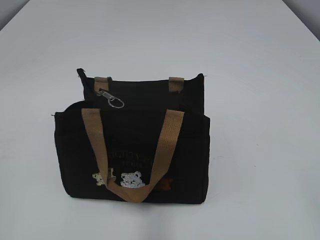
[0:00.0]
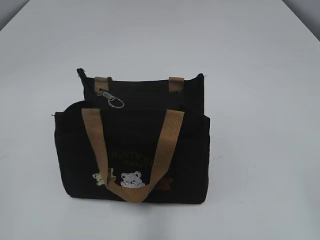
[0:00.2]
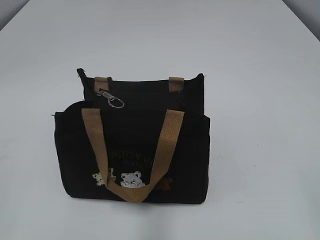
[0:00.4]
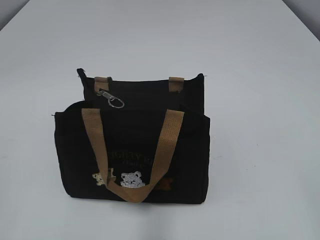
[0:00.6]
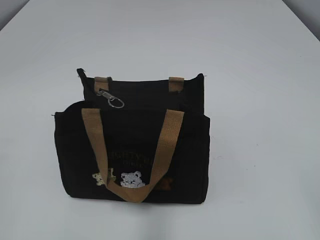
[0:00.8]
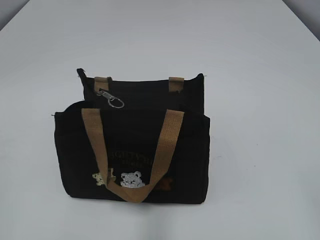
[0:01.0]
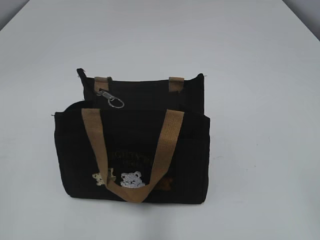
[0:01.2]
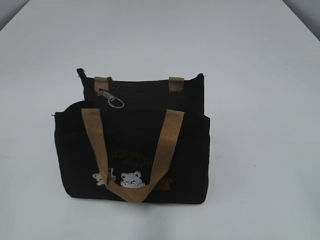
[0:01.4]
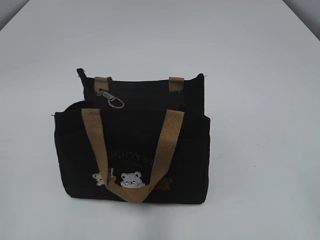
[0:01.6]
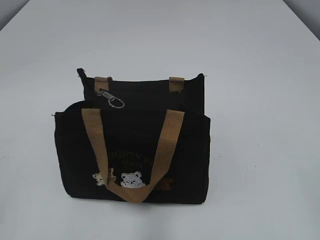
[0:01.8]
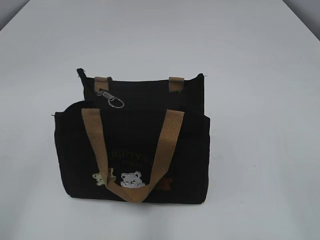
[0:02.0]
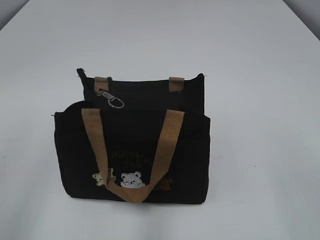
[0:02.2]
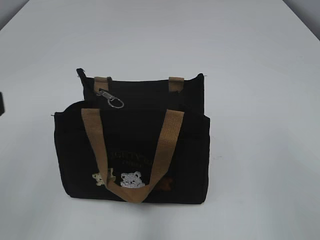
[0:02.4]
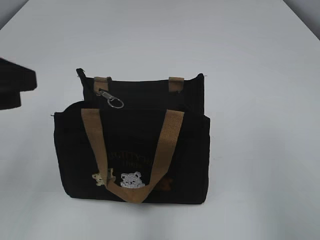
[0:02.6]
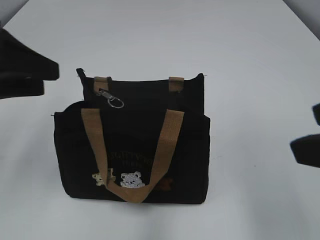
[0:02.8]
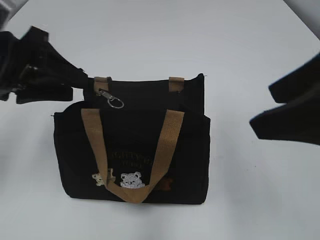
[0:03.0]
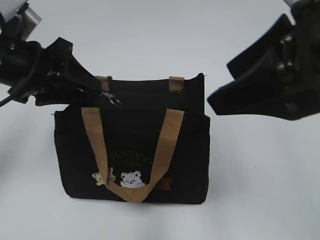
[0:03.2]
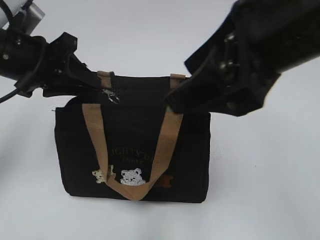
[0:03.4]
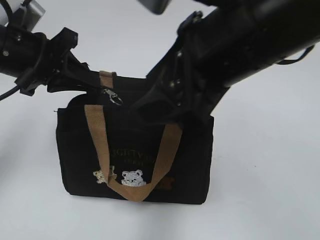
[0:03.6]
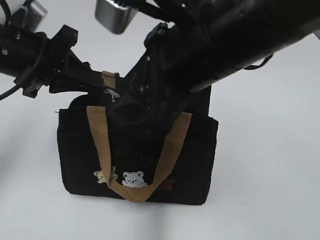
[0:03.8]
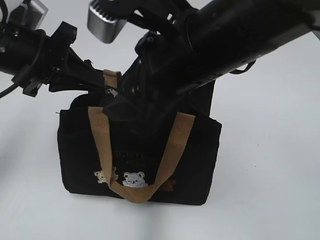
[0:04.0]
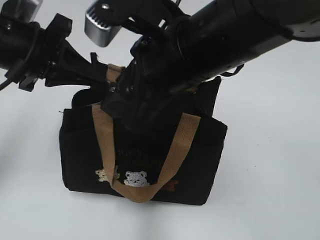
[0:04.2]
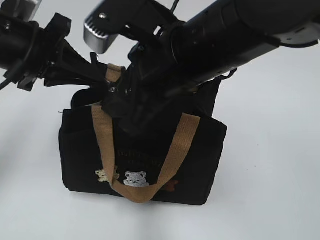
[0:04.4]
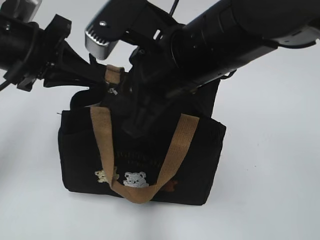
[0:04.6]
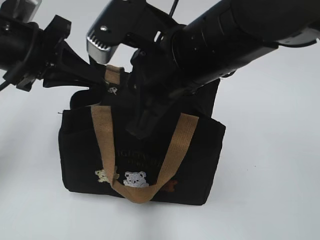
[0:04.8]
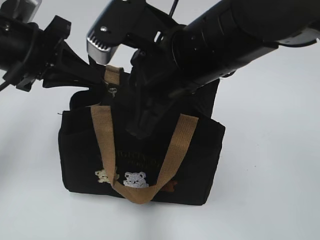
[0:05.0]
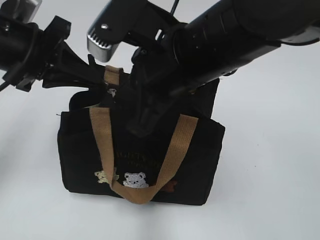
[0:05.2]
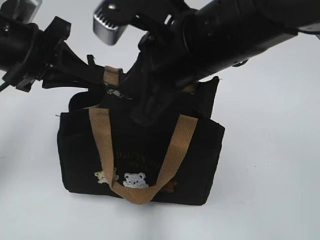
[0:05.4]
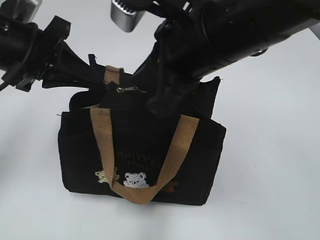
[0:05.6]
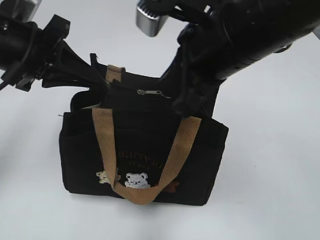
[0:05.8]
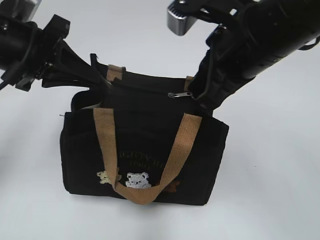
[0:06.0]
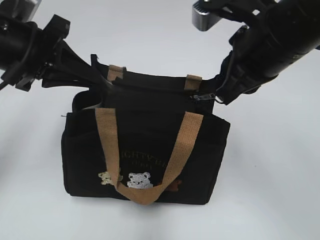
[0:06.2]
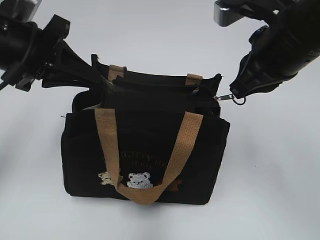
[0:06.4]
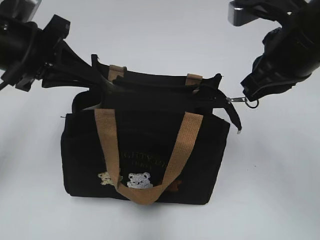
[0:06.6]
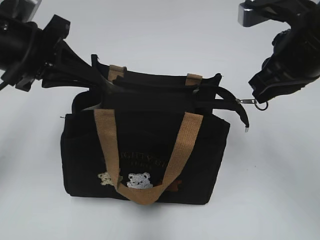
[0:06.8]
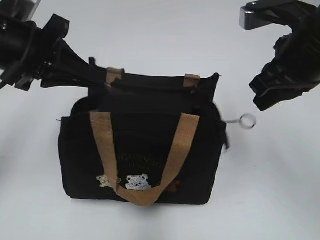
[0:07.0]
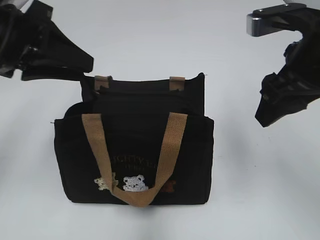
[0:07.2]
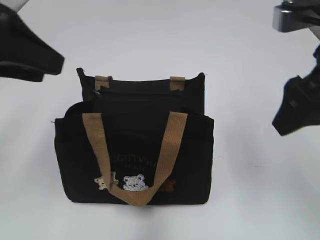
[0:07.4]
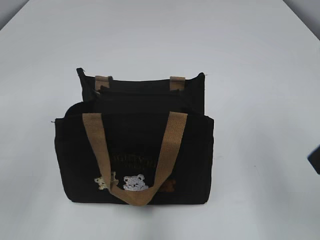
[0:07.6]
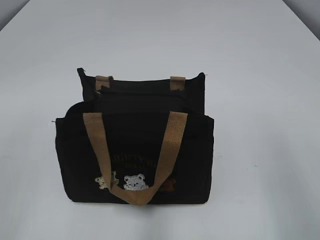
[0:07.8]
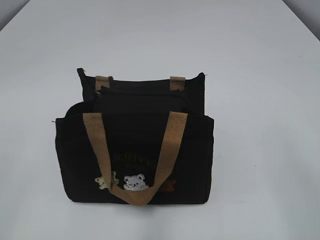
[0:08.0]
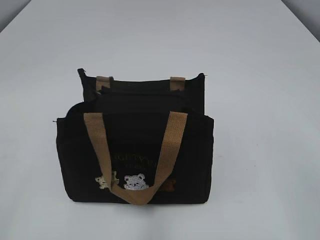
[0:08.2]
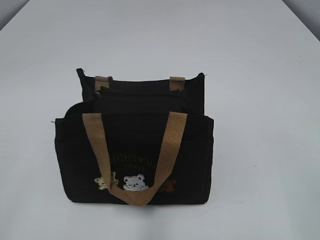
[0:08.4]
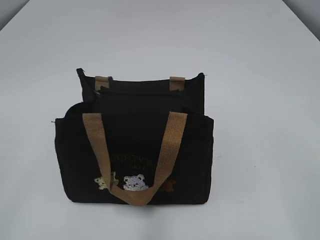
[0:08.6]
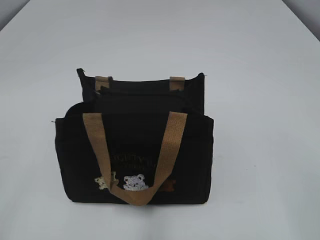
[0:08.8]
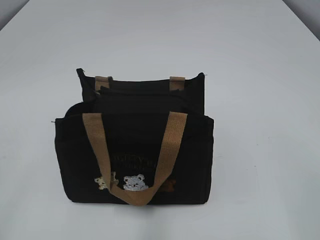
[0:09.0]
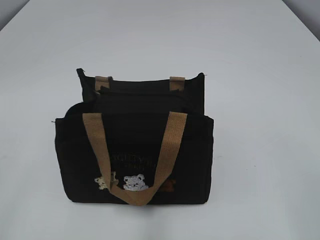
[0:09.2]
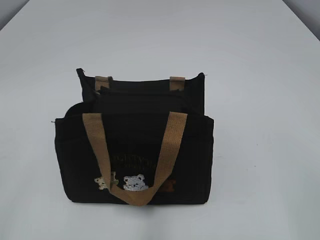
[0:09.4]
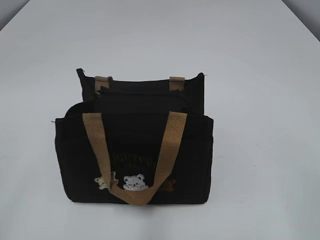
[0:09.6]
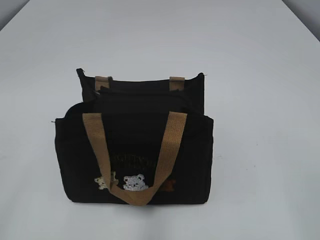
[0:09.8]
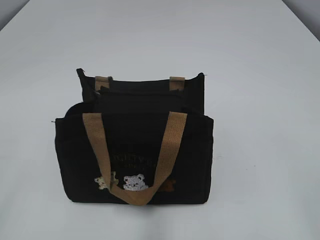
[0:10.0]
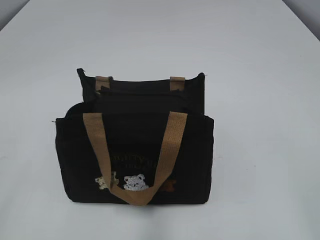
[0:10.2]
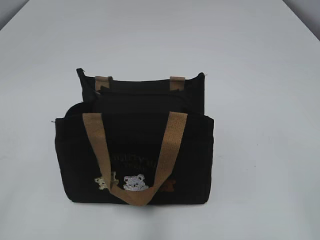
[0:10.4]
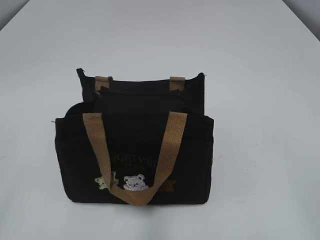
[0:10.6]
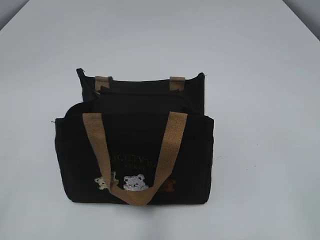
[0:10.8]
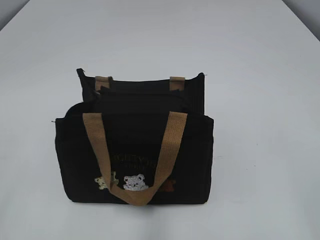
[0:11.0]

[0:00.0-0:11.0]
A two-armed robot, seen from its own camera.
Step, 0:00.0 to 0:06.8: Pull open the zipper with your right hand.
0:01.6 to 0:03.2: The left gripper is displaced forward by about 30 cm, while the right gripper heads forward and to the left, covering about 25 cm.
0:03.2 to 0:04.8: The right gripper shifts about 15 cm to the left, downward and forward, and closes its fingers, while the left gripper closes up.
0:04.8 to 0:06.2: The right gripper is displaced to the right by some 10 cm.
0:06.2 to 0:07.8: The right gripper goes approximately 20 cm backward and to the right, and opens its fingers. Meanwhile the left gripper travels backward and to the left by roughly 25 cm, and opens.
0:07.8 to 0:09.4: The left gripper heads backward and downward, covering roughly 10 cm, while the right gripper moves backward, roughly 10 cm.

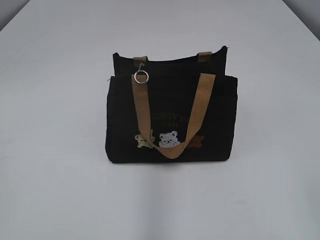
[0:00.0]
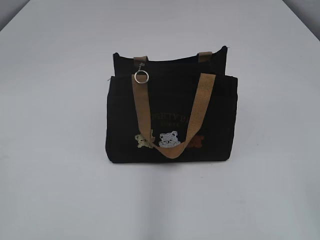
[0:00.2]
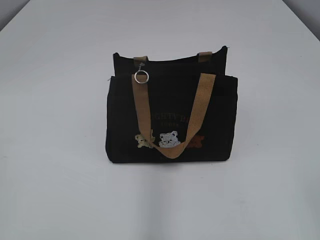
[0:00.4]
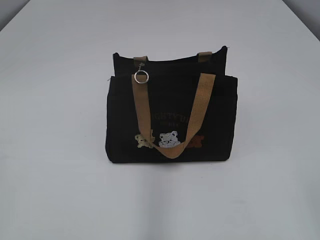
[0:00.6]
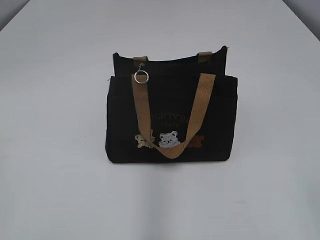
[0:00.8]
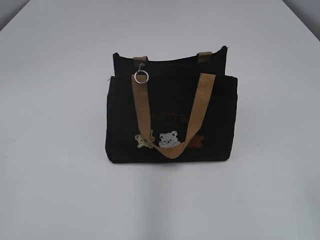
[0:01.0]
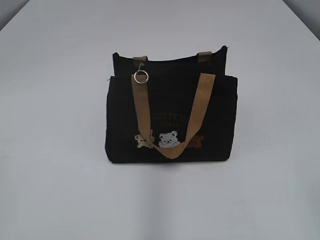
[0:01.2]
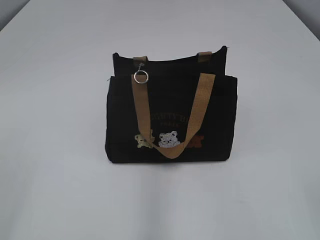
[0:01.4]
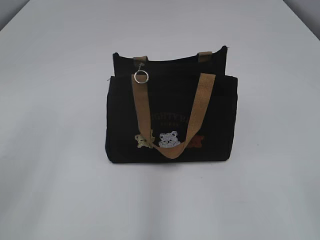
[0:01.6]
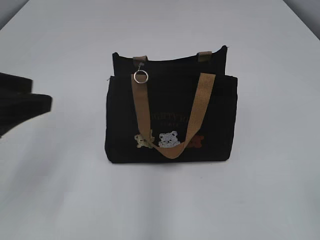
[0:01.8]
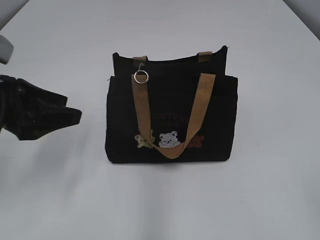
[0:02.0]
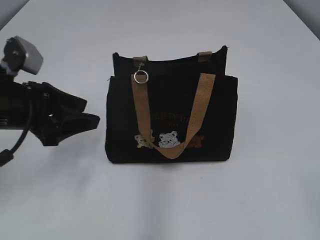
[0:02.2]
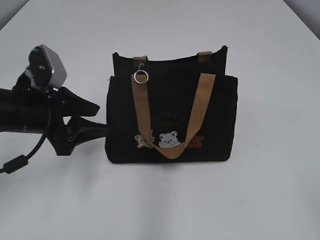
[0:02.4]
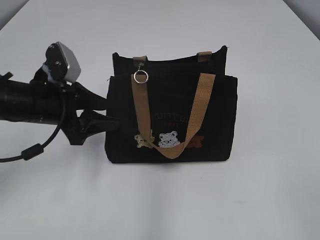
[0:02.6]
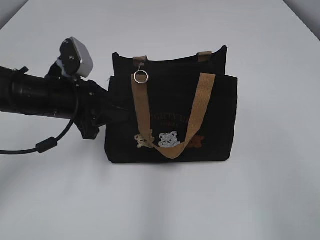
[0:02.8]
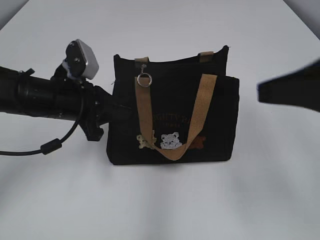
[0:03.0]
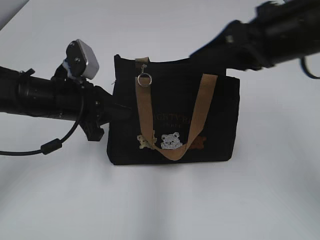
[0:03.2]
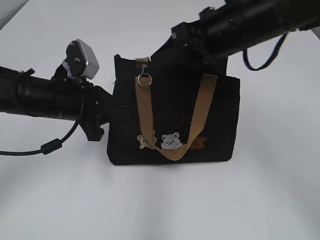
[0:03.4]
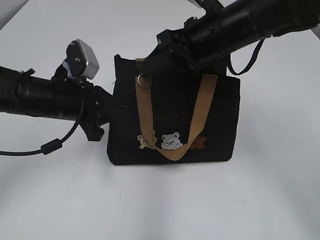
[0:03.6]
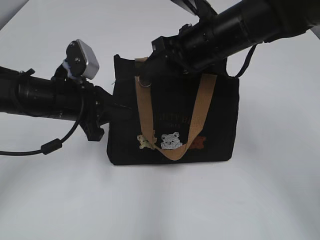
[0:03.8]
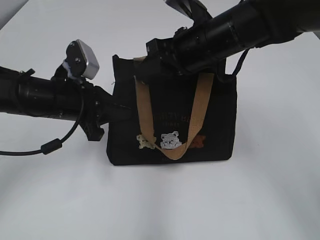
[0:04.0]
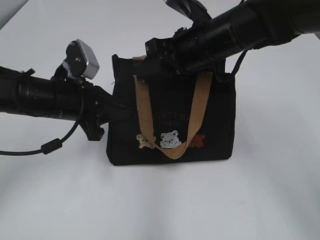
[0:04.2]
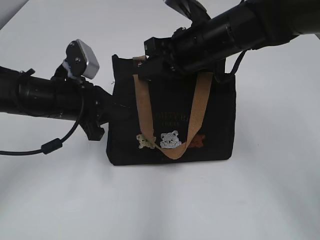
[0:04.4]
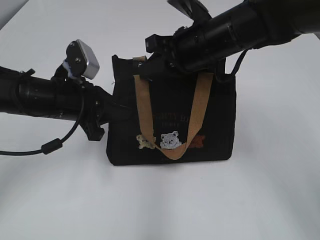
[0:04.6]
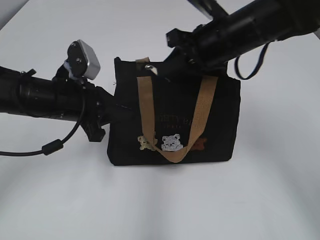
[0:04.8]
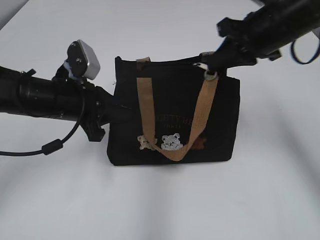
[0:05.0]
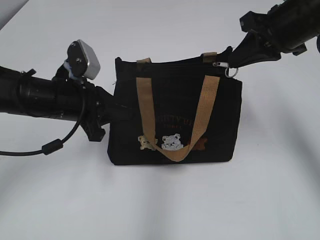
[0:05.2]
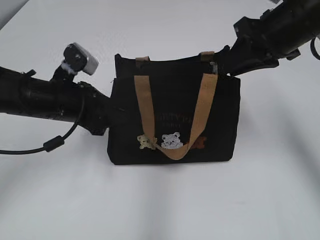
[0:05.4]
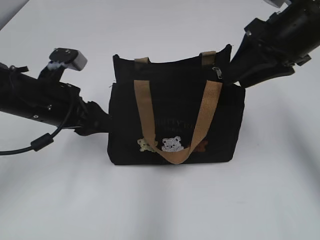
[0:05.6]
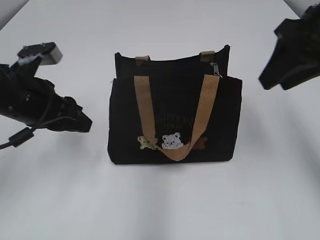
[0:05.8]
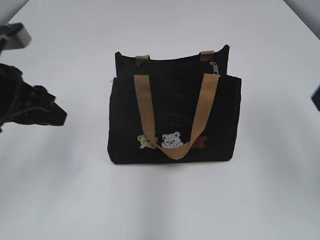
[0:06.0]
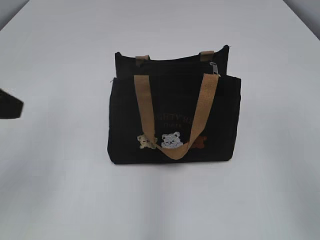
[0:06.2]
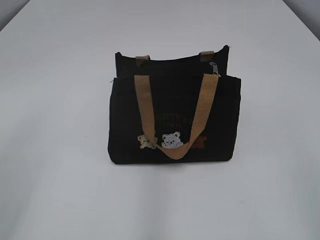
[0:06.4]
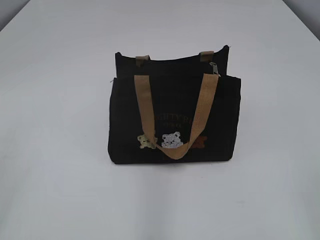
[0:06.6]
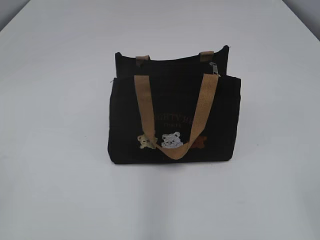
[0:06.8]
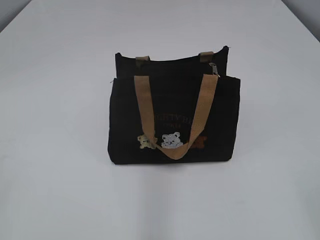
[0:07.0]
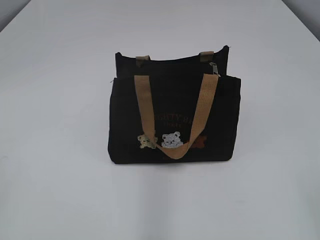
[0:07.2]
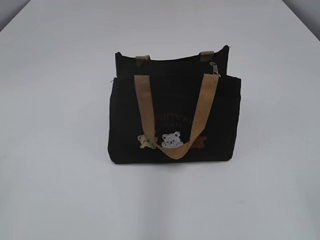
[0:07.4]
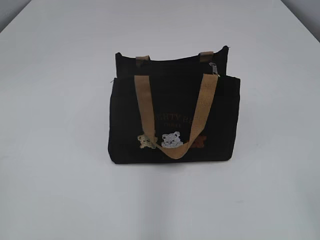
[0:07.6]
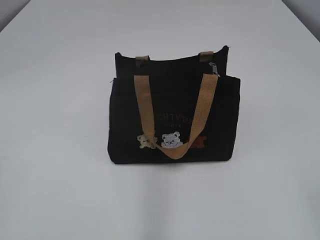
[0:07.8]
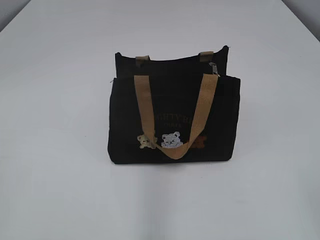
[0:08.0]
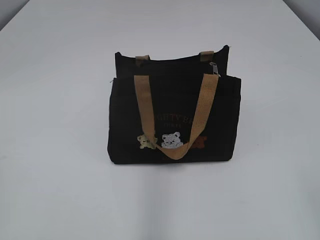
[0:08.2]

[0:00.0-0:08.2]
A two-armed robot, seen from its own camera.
Step, 0:00.0 to 0:05.4: Pull open the zipper with your right hand.
0:01.6 to 0:03.2: The left gripper heads forward, downward and to the right, covering approximately 30 cm, and closes its fingers, while the right gripper travels forward and to the left by approximately 25 cm.
0:03.2 to 0:05.0: The right gripper moves forward and downward, roughly 15 cm, and closes up.
0:05.0 to 0:06.6: The right gripper moves backward, about 35 cm, and opens its fingers, while the left gripper shifts approximately 30 cm backward, upward and to the left, and opens.
